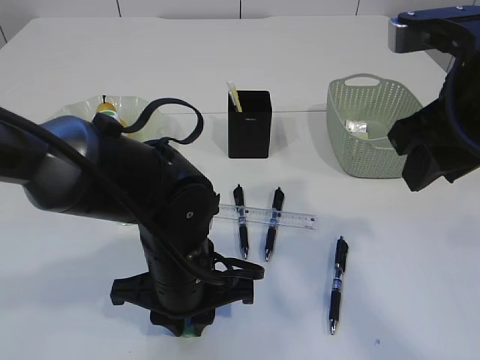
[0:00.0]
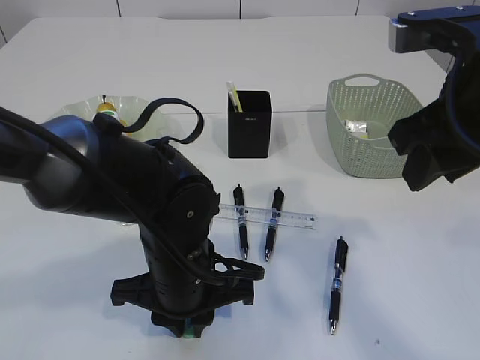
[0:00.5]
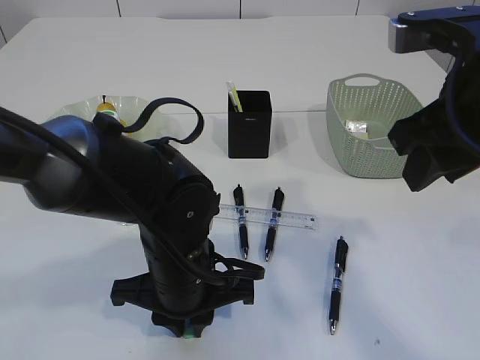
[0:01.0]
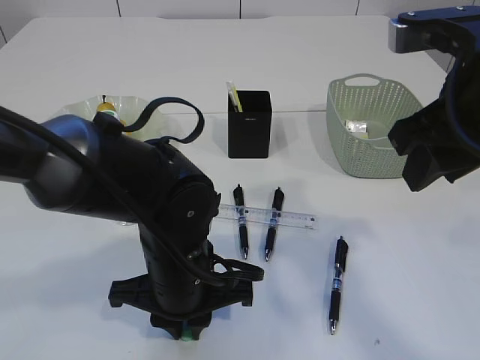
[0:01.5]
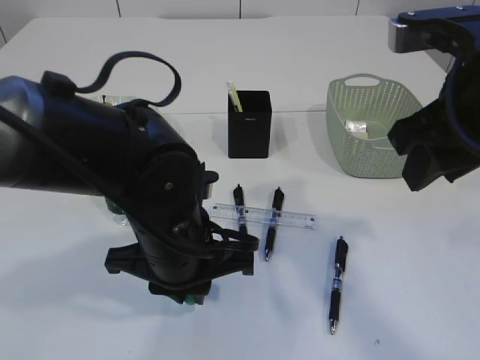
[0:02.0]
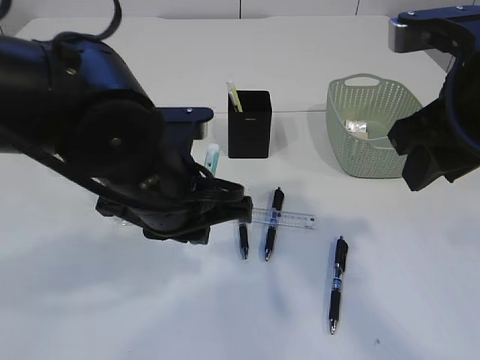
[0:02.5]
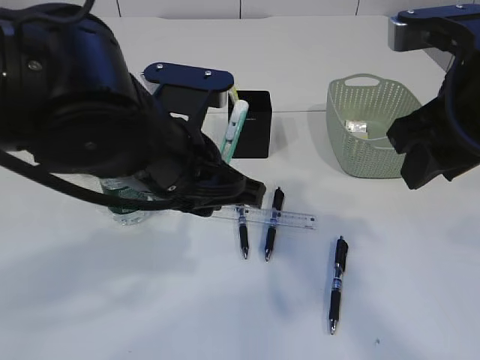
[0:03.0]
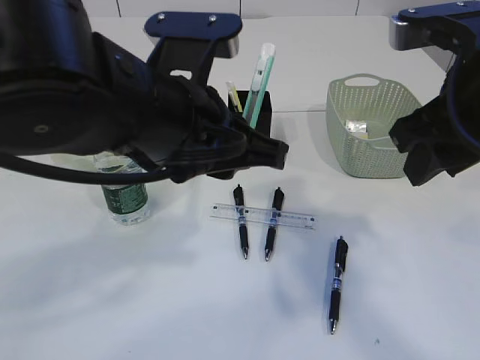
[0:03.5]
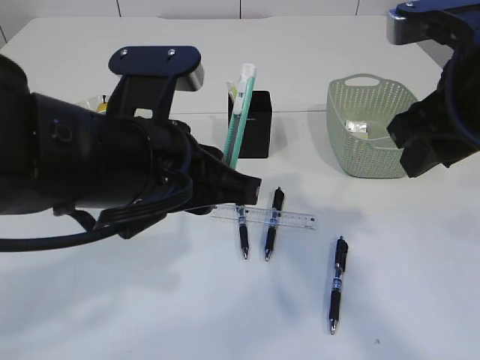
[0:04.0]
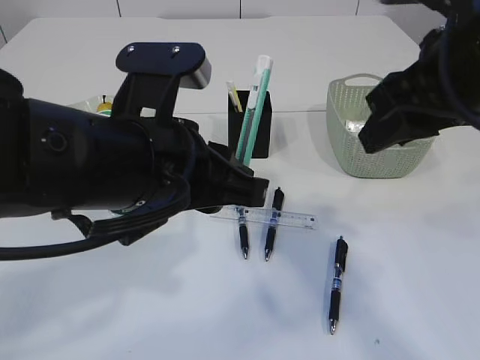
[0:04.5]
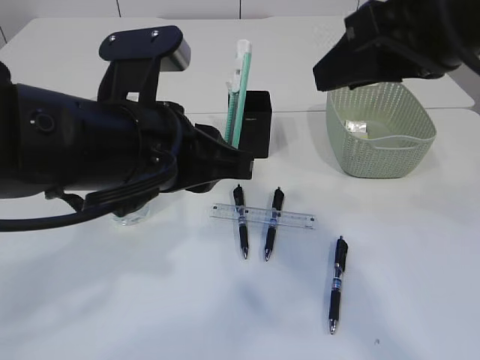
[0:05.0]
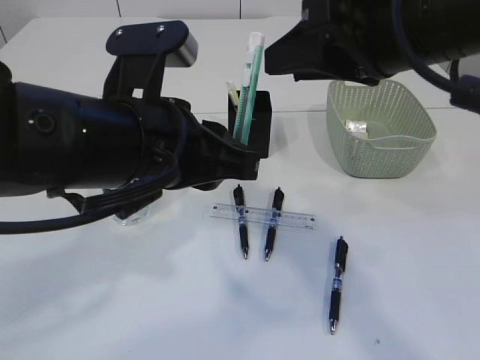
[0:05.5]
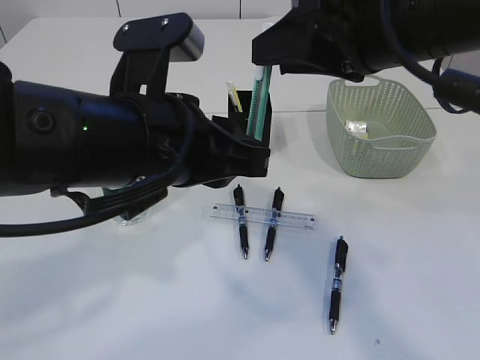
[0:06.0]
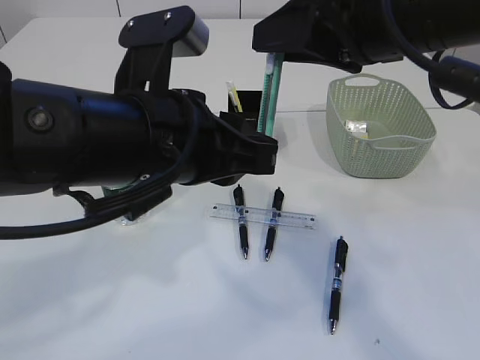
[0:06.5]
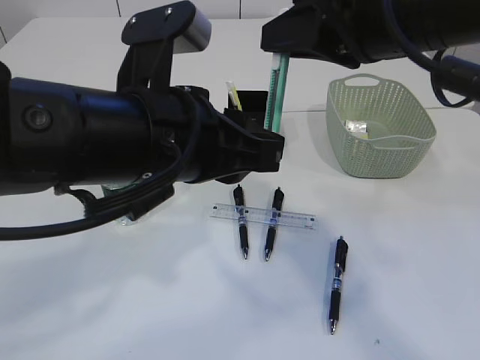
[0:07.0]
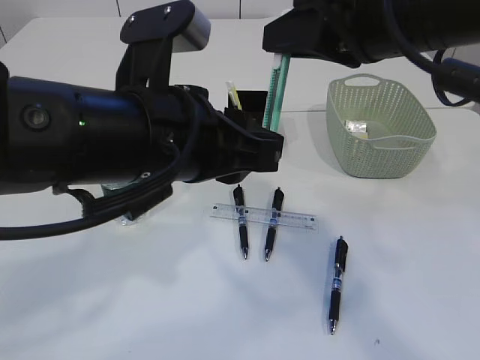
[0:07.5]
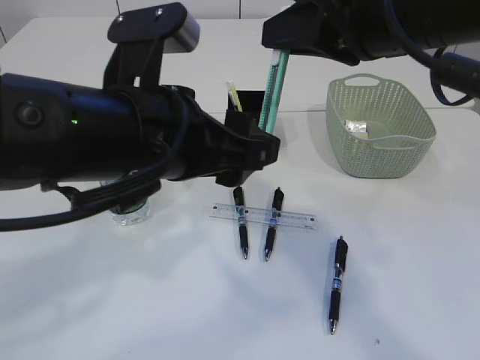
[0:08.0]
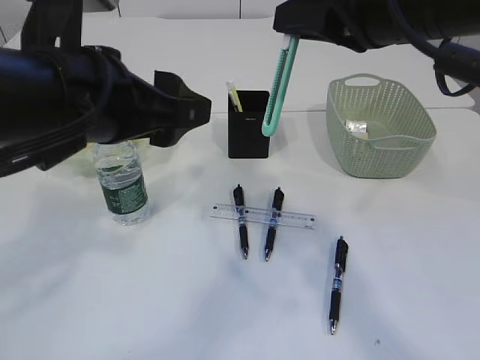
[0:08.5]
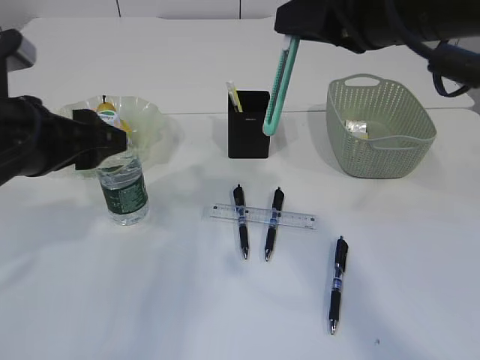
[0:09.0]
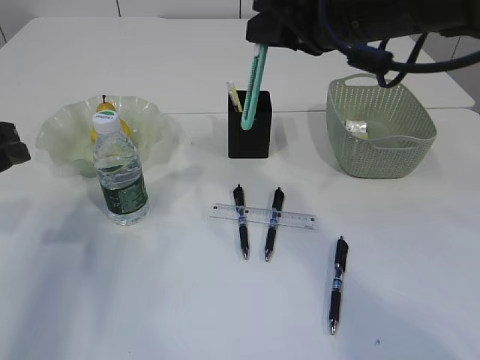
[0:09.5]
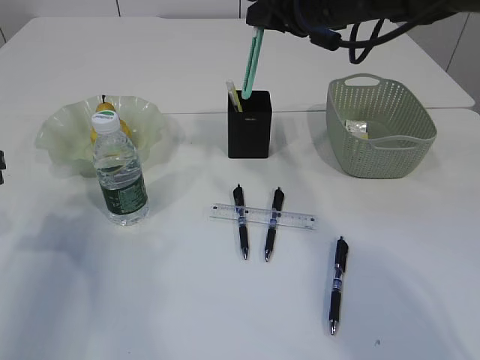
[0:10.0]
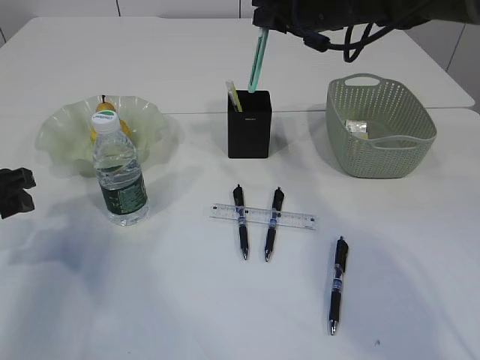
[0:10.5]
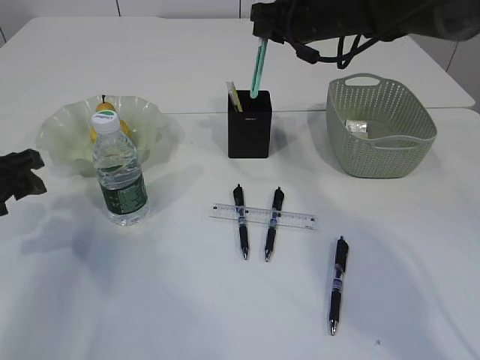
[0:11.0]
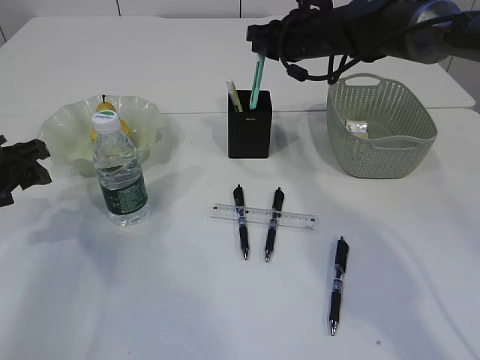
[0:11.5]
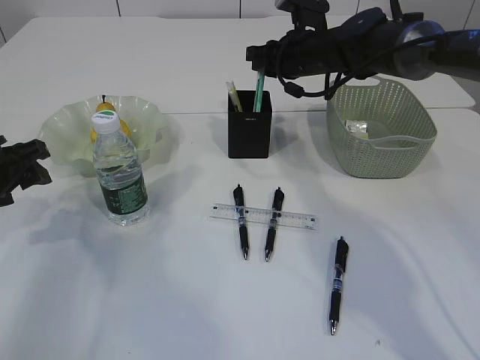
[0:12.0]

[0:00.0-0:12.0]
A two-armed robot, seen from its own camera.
Step, 0:00.0 to 0:02.0: pick up the blue knife.
Step, 0:02.5 to 0:08.0: Hand over the blue scissors.
0:00.0 to 0:02.0: There are only small adjustments of the grippers.
0:02.0 to 0:04.0: The left gripper travels upward by approximately 10 cm.
0:04.0 to 0:06.0: The right gripper shifts some 5 cm to the left.
0:06.0 to 0:08.0: The left gripper opens. Meanwhile the right gripper closes its fingers.
0:08.0 to 0:10.0: The right gripper travels forward by approximately 15 cm, while the left gripper moves to the left, some 25 cm.
0:10.0 to 0:12.0: The right gripper goes about 15 cm forward and downward, while the left gripper ends up some 5 cm from where it was.

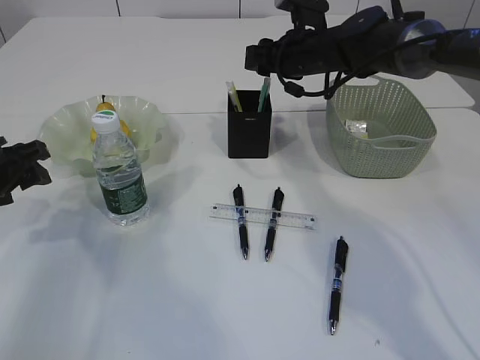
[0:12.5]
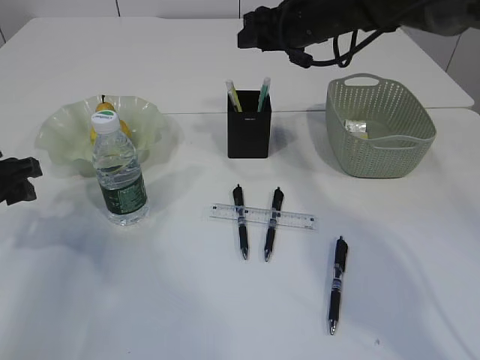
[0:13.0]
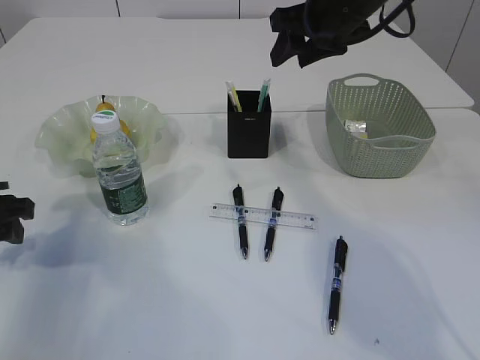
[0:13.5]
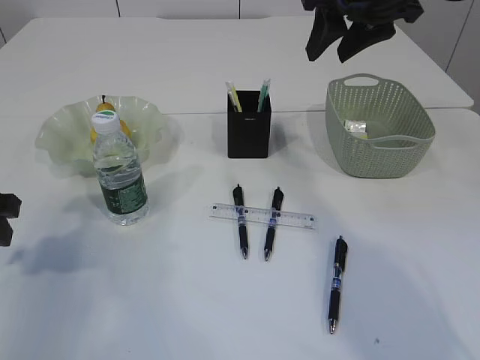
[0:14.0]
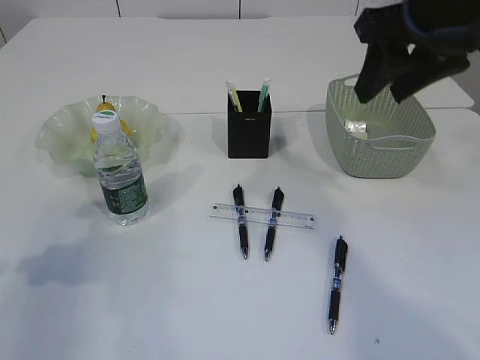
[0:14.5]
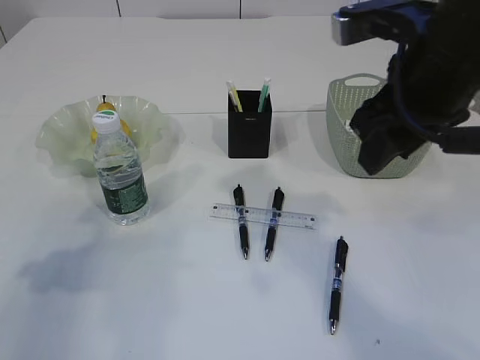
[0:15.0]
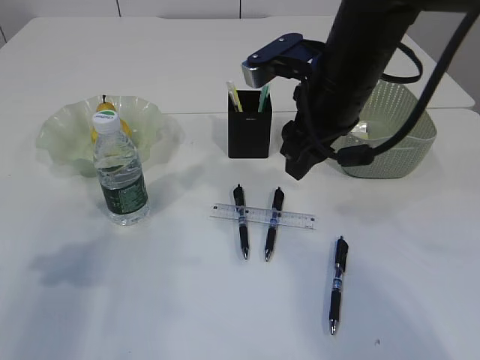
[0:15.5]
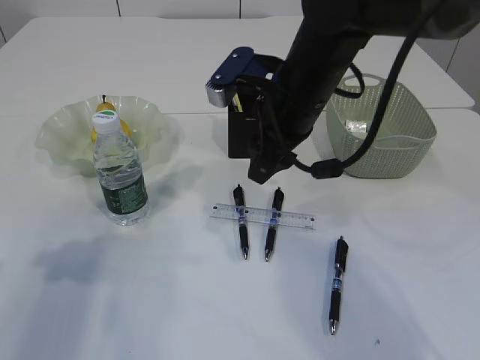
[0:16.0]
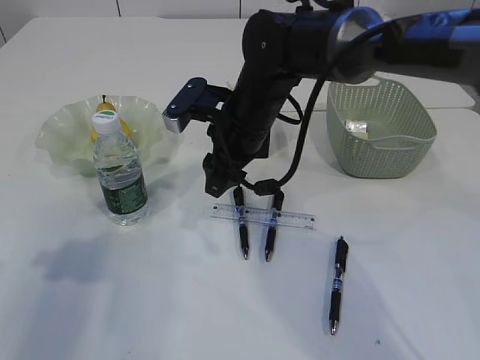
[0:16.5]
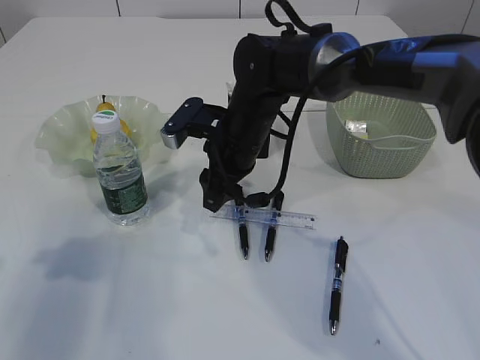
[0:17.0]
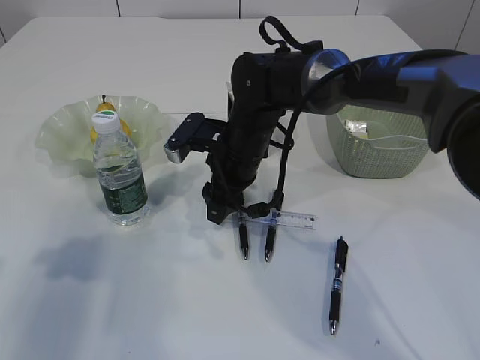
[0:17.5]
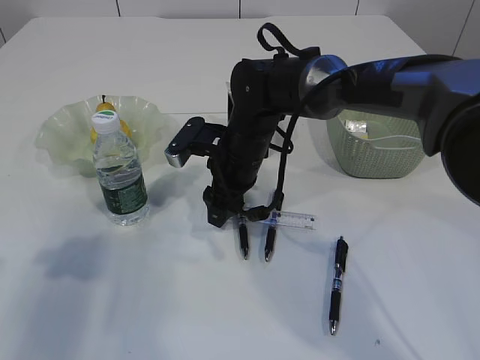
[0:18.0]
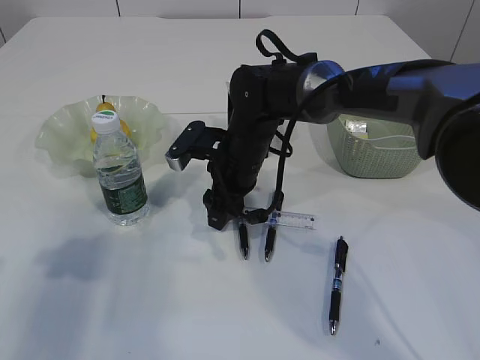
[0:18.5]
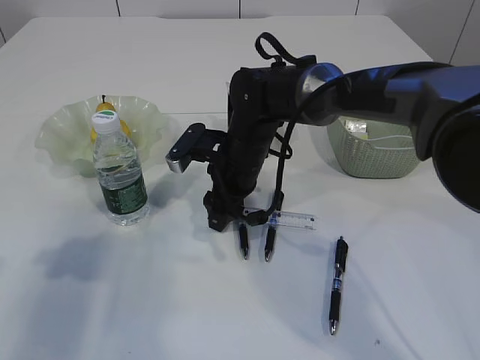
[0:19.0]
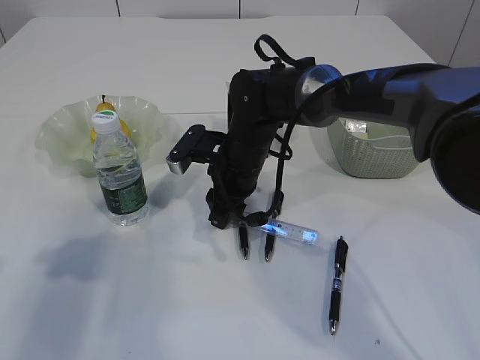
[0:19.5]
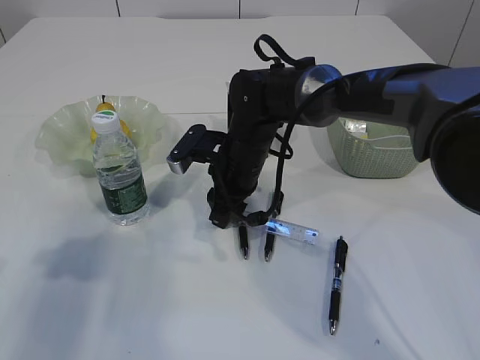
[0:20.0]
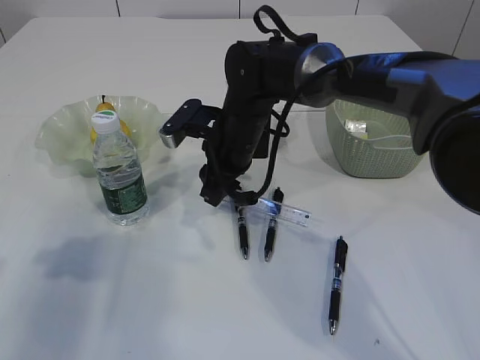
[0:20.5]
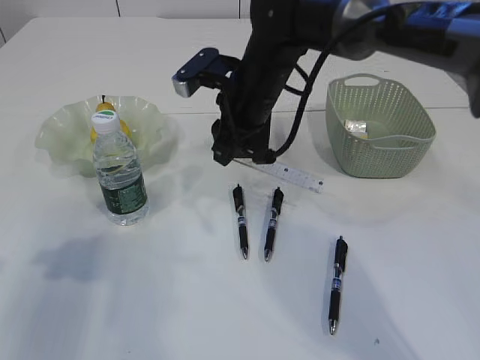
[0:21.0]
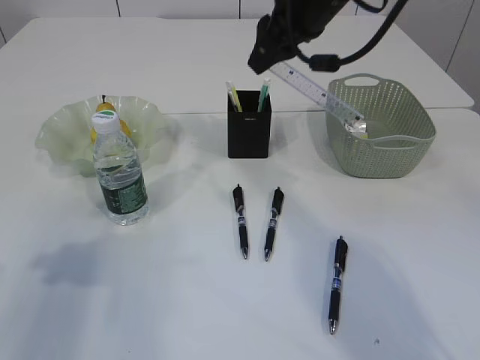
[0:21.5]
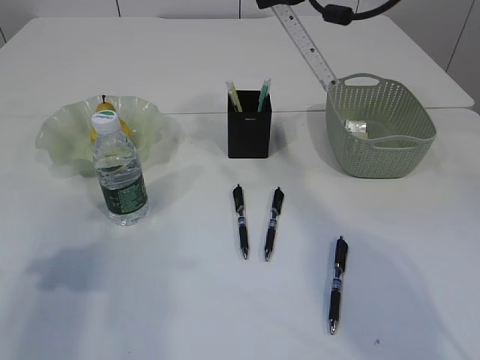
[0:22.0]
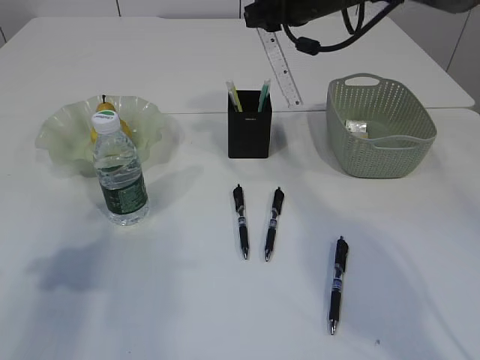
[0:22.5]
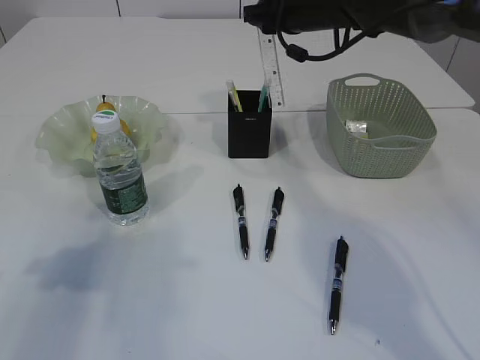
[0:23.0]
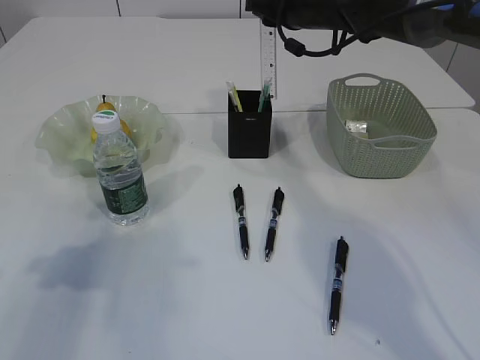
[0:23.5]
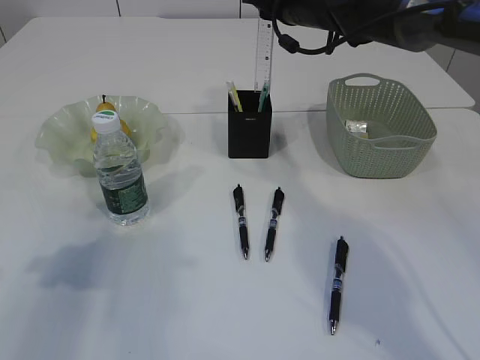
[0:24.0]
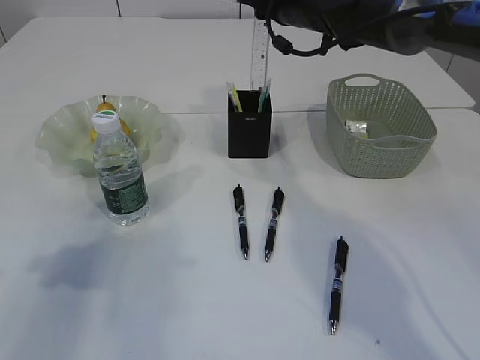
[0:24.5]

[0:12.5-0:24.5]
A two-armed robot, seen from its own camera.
Step, 0:14.0 to 0:21.0: pick up the ruler.
0:12.5 to 0:14.5: The right gripper is displaced backward and upward by approximately 25 cm. Meanwhile the left gripper goes approximately 5 cm backward.
0:14.5 to 0:16.5: The right gripper is displaced downward, to the left and forward by approximately 25 cm.
0:16.5 to 0:18.5: The right gripper goes some 5 cm downward.
0:18.5 to 0:20.5: The right gripper closes its fingers.
0:20.5 to 0:22.5: The right gripper moves upward, to the right and forward, roughly 20 cm.

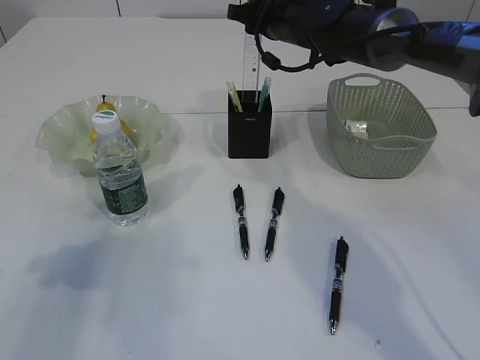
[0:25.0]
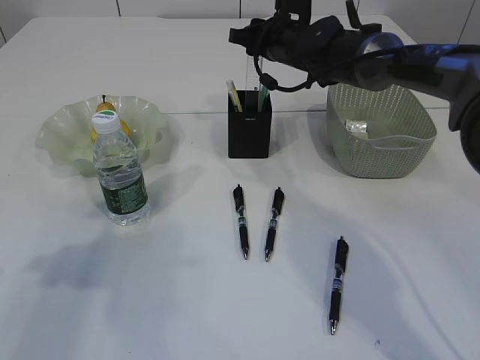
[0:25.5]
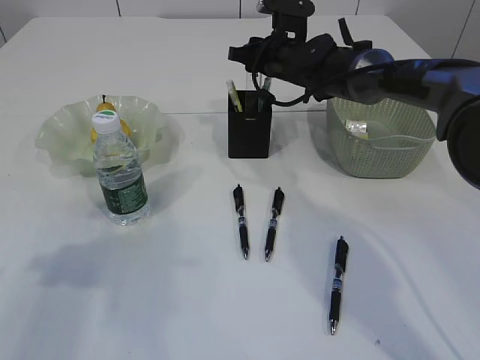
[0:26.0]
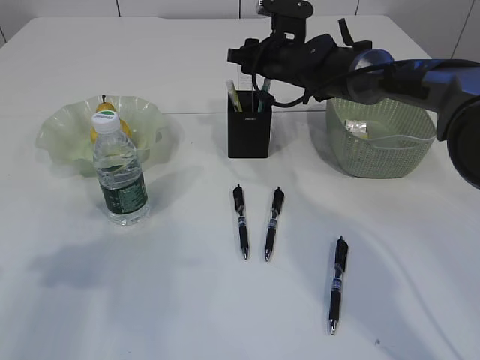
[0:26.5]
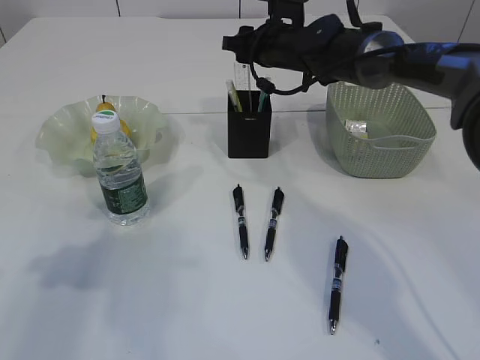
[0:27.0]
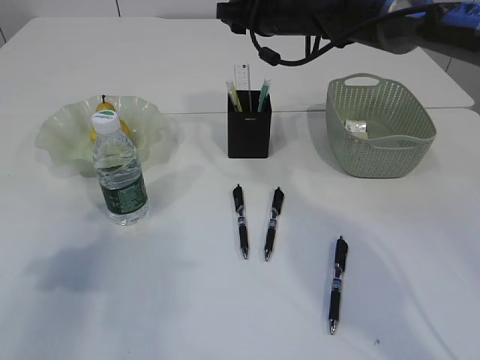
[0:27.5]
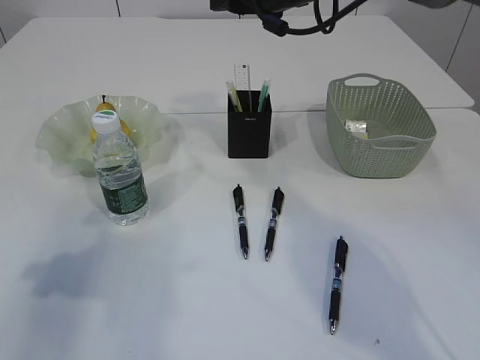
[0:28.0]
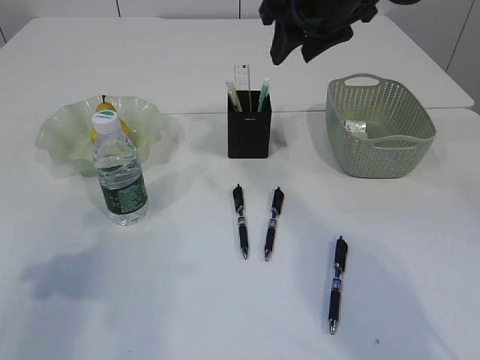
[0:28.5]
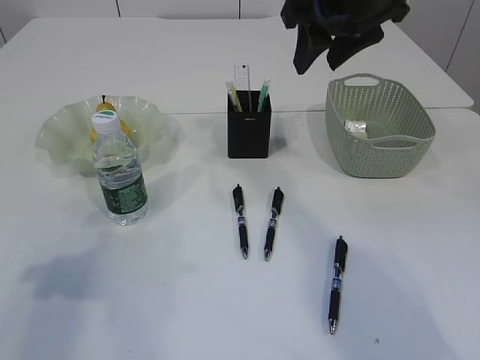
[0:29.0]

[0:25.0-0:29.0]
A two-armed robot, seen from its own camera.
Step, 0:25.0 to 0:28.0: Place the ruler into the pen holder.
0:27.0 to 0:29.0: The right gripper moves backward and upward, roughly 20 cm.
